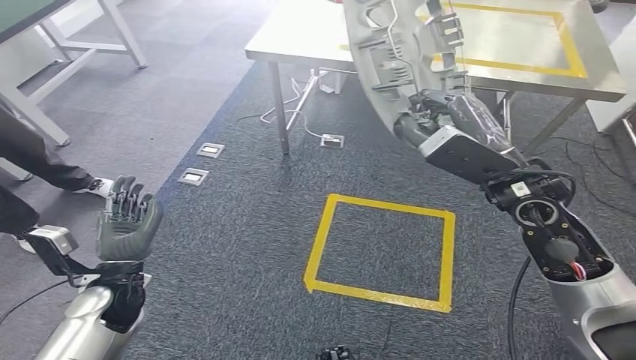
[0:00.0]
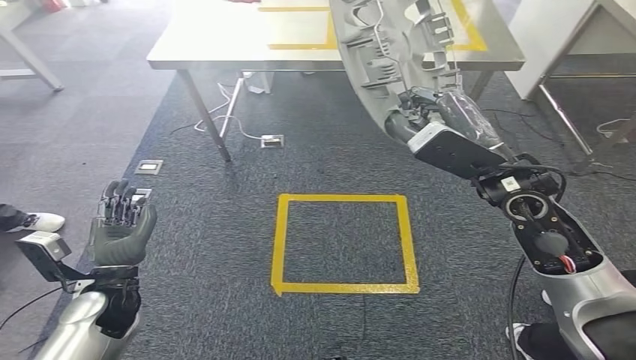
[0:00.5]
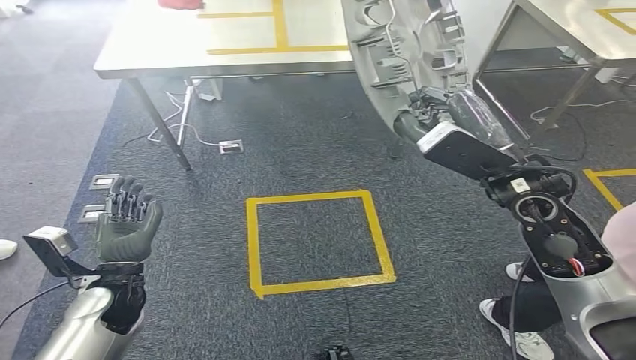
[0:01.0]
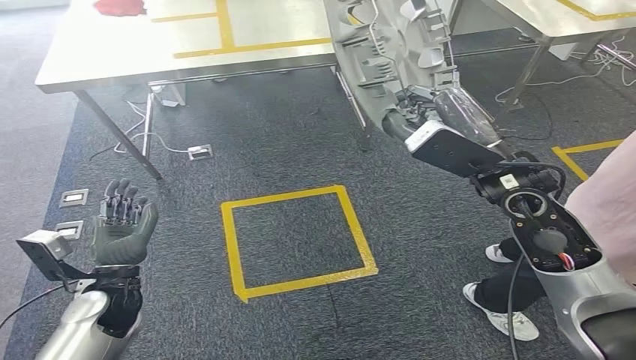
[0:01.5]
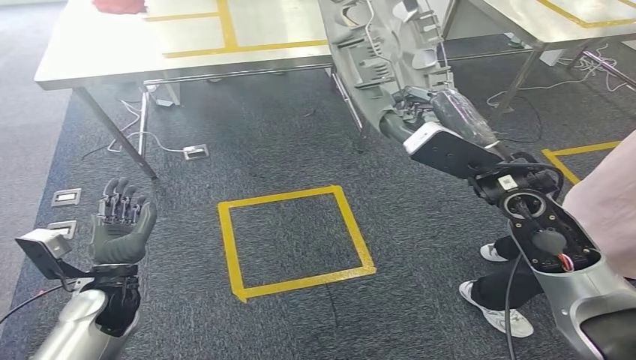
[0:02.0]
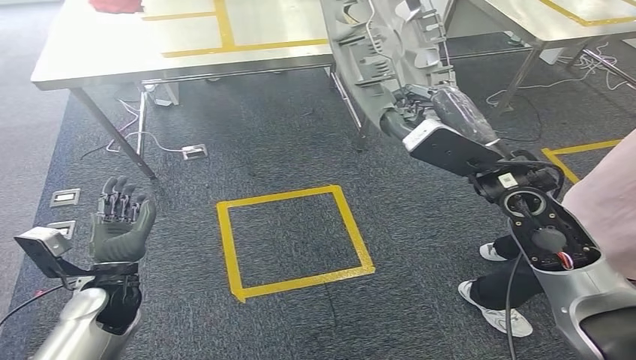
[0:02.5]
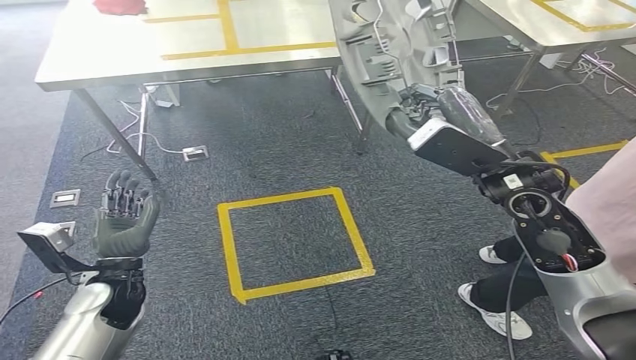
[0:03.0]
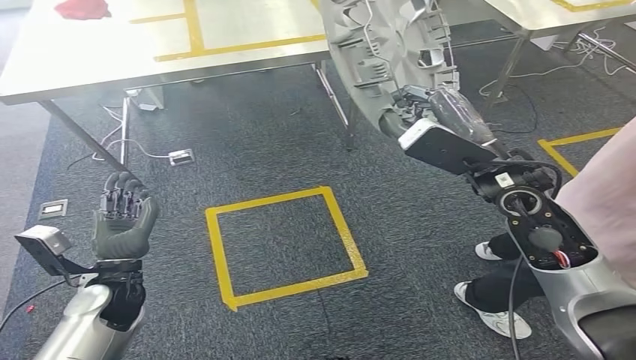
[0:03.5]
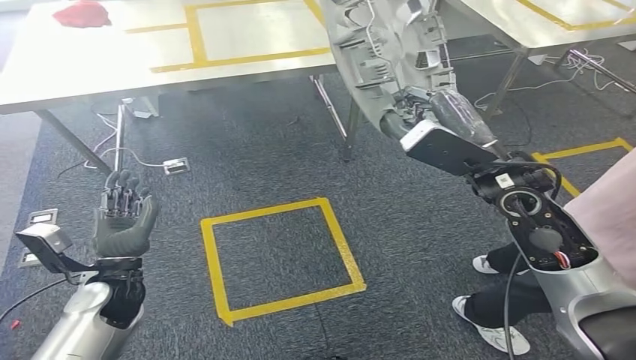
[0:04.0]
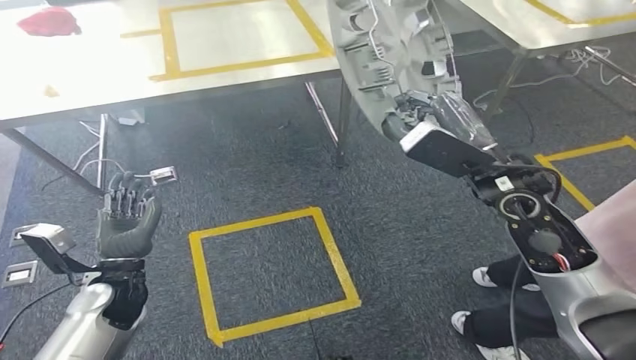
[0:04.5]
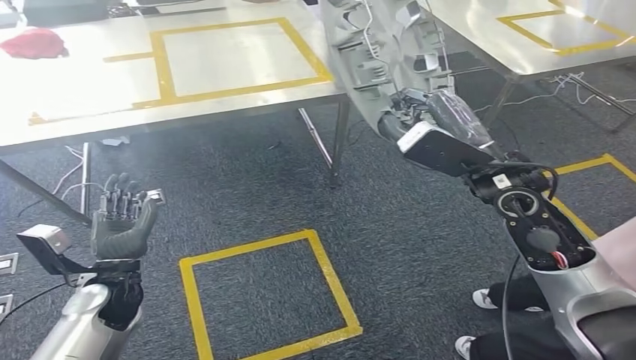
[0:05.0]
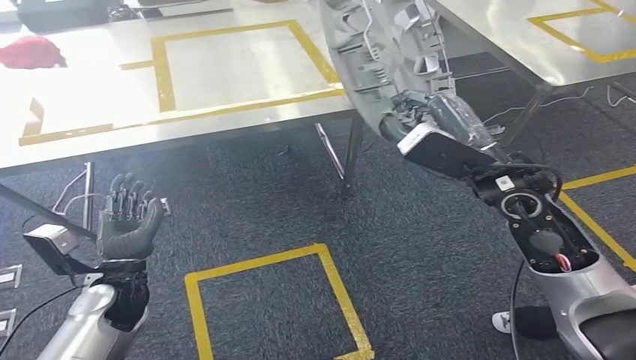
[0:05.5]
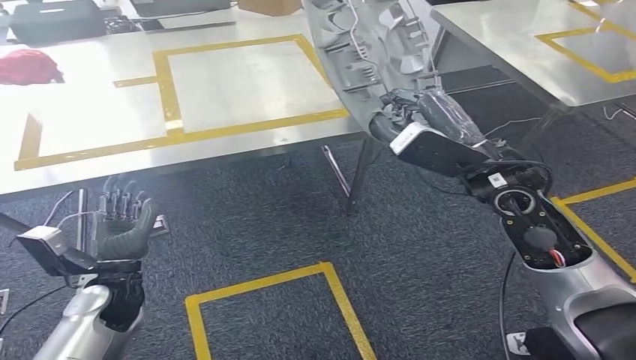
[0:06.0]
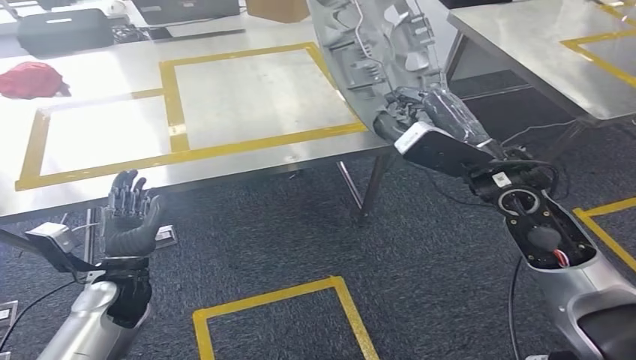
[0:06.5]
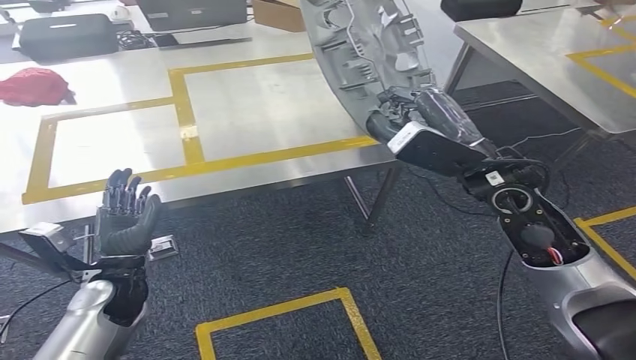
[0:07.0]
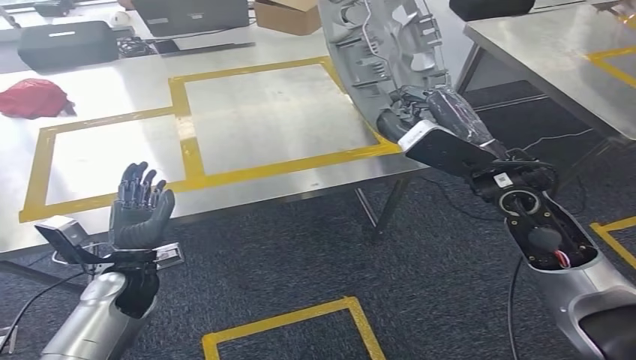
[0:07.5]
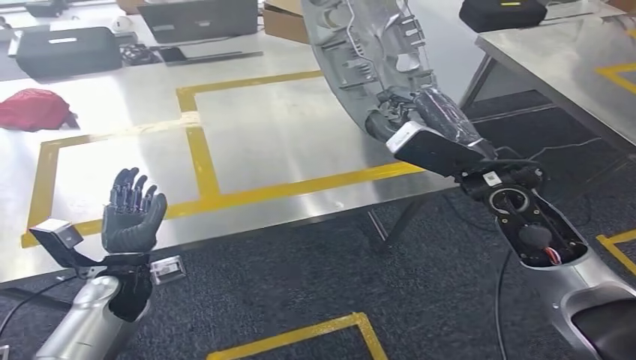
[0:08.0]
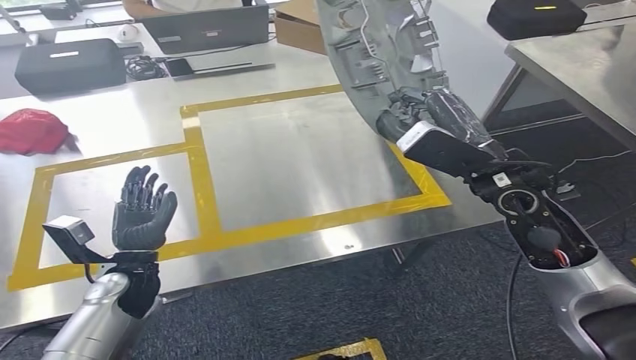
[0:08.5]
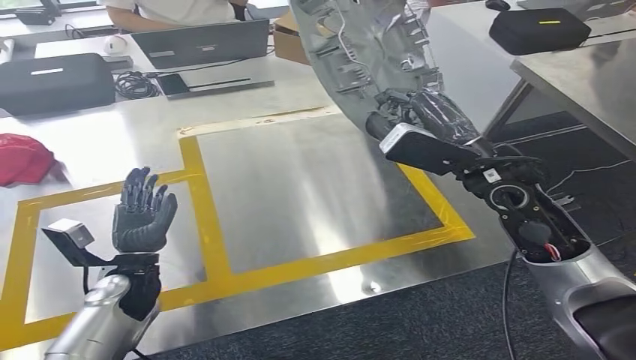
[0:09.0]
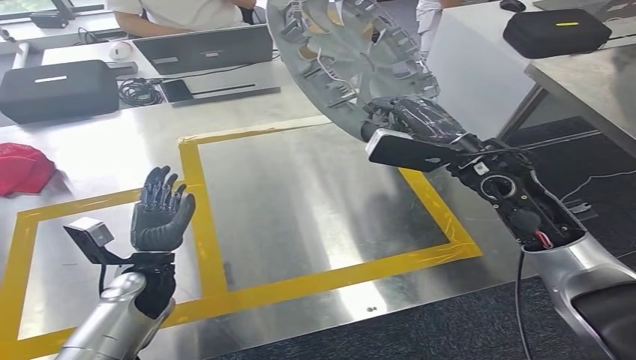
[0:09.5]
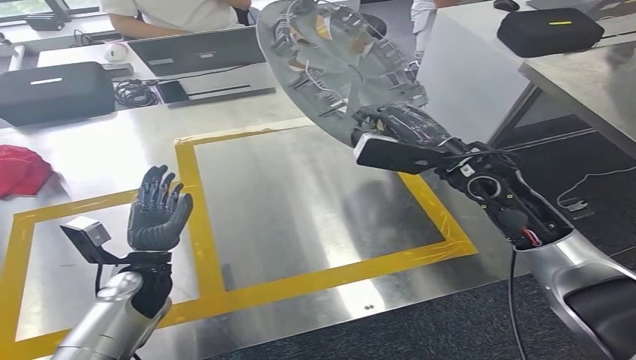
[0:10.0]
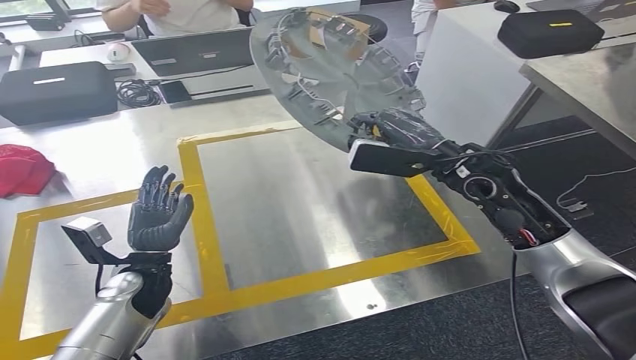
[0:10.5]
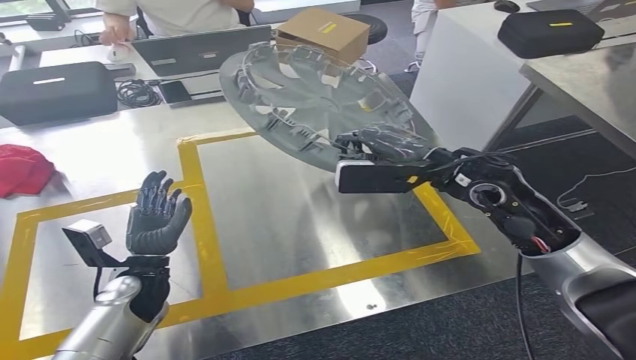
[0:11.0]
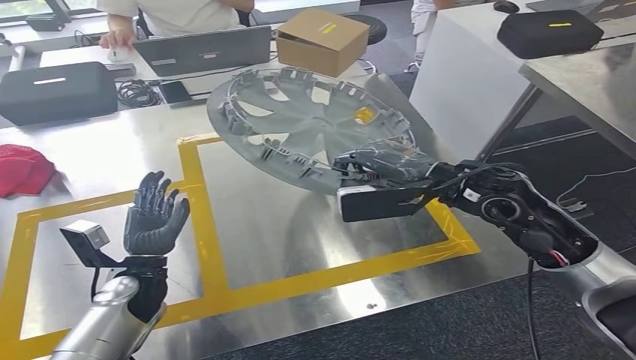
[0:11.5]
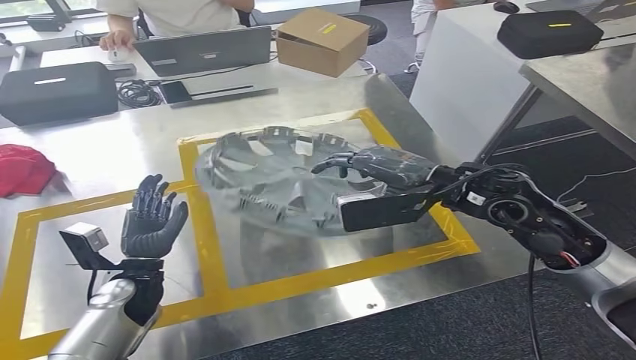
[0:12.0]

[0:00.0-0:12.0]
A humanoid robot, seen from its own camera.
Step, 0:00.0 to 0:08.5: Move the small parts to the workbench.

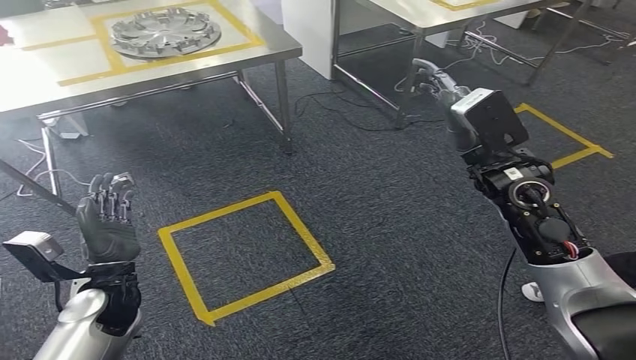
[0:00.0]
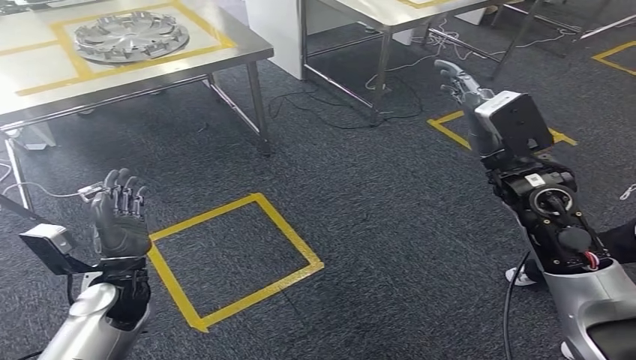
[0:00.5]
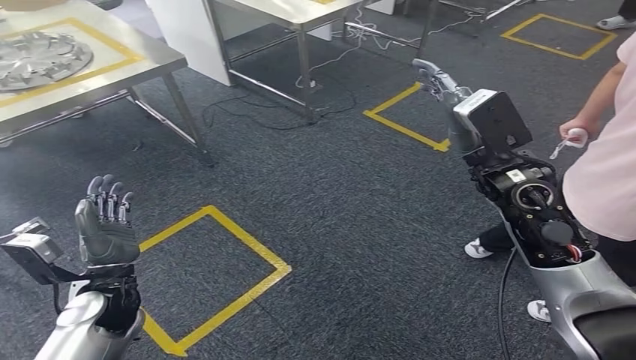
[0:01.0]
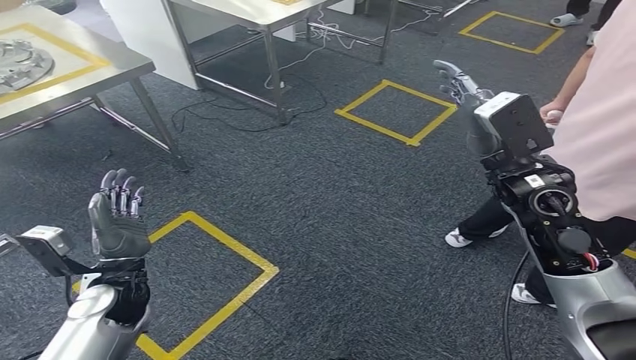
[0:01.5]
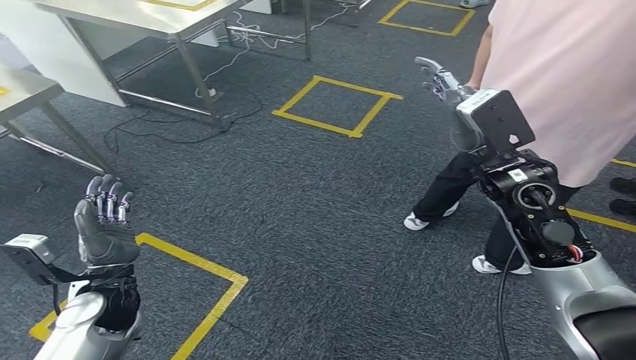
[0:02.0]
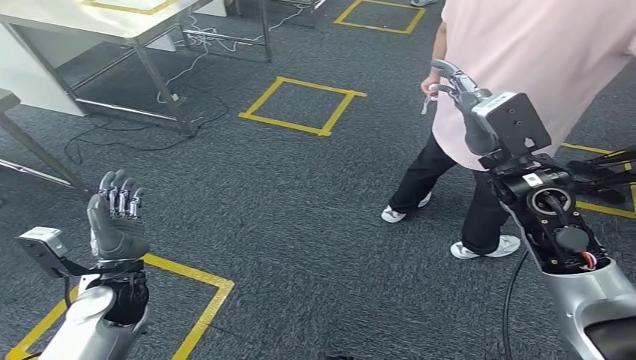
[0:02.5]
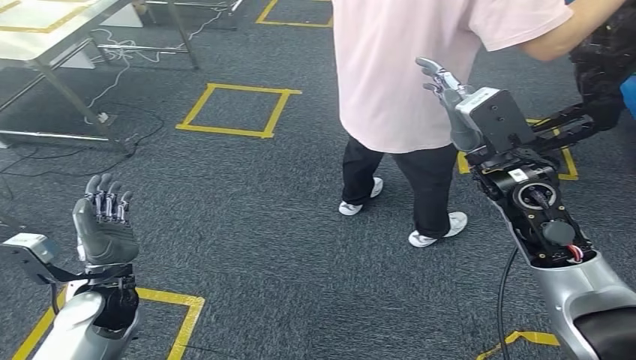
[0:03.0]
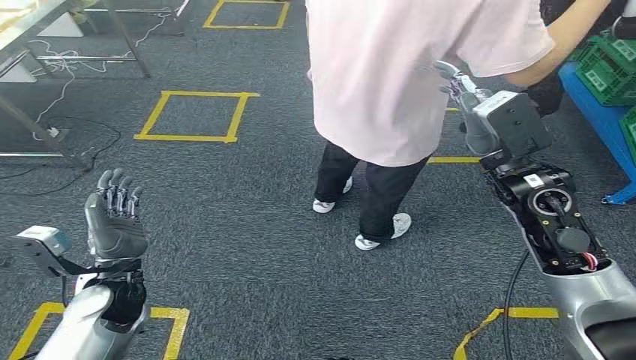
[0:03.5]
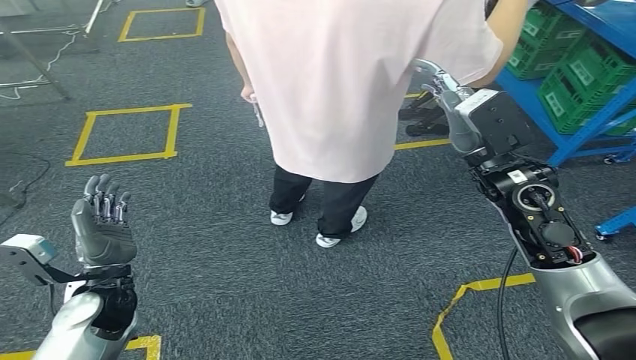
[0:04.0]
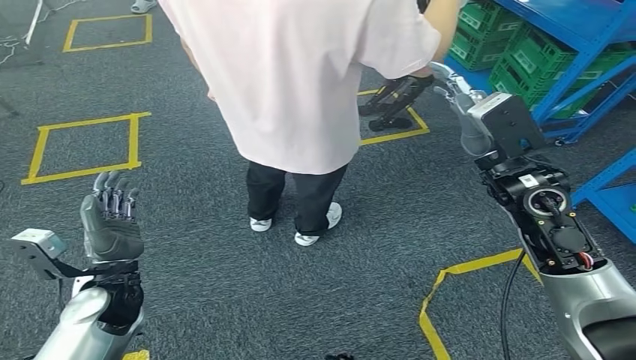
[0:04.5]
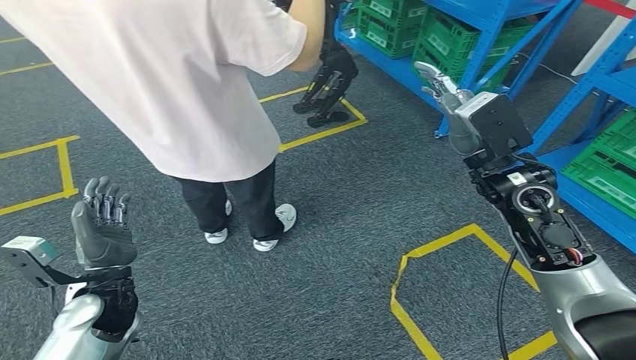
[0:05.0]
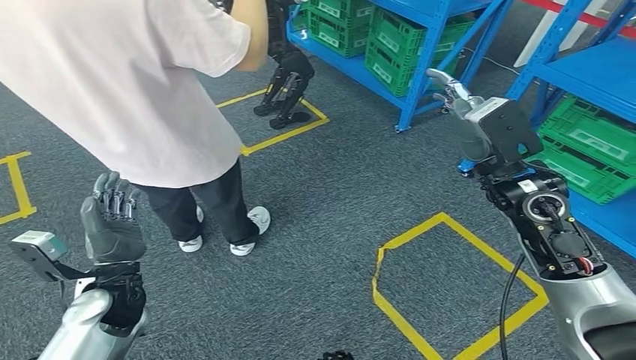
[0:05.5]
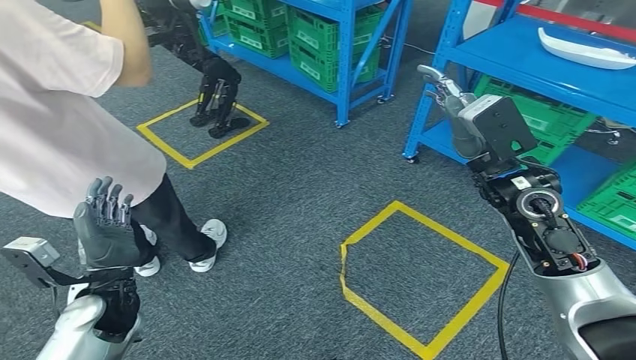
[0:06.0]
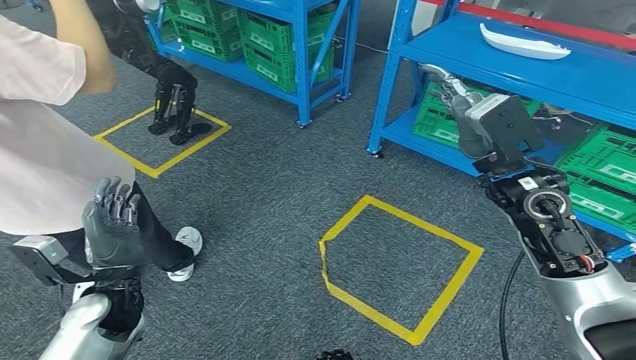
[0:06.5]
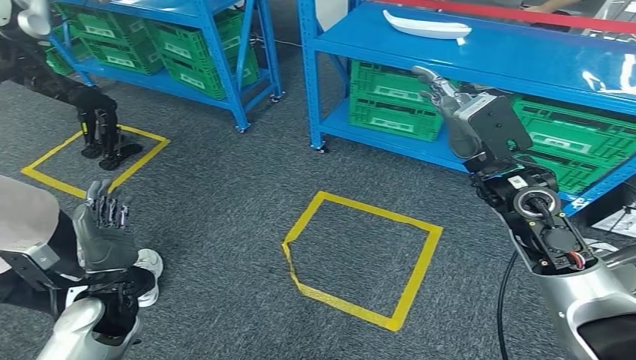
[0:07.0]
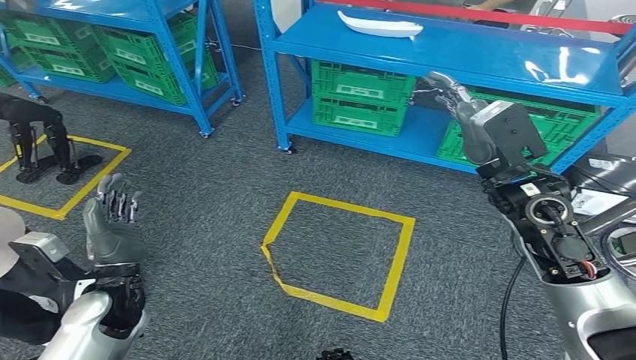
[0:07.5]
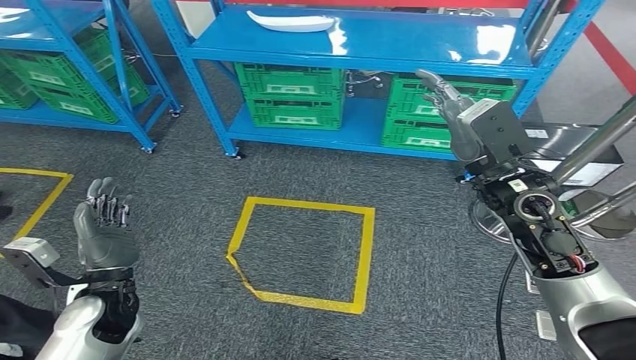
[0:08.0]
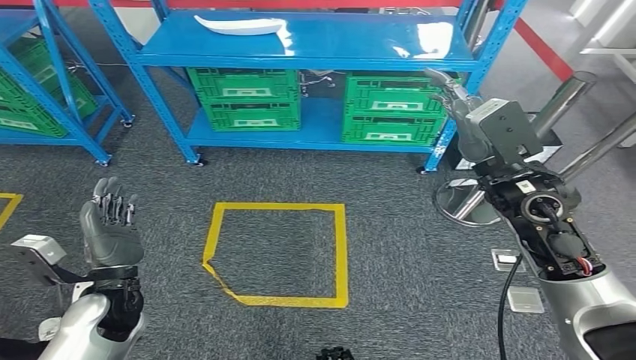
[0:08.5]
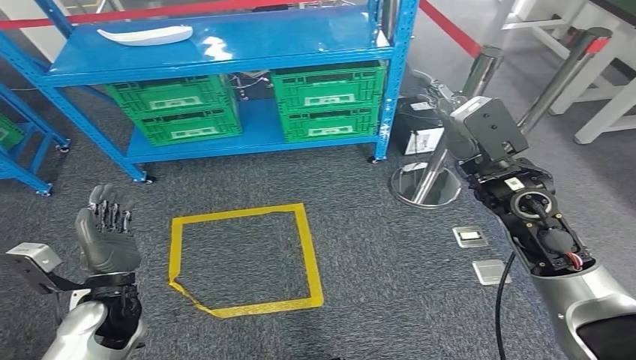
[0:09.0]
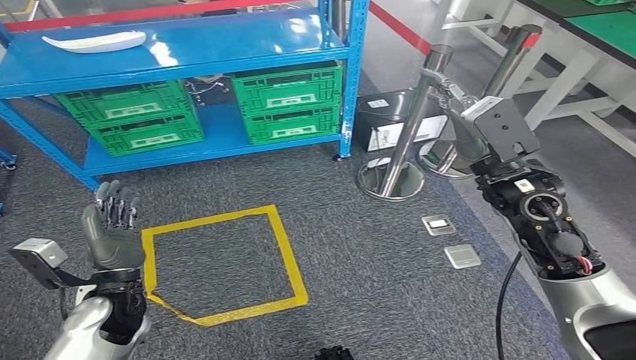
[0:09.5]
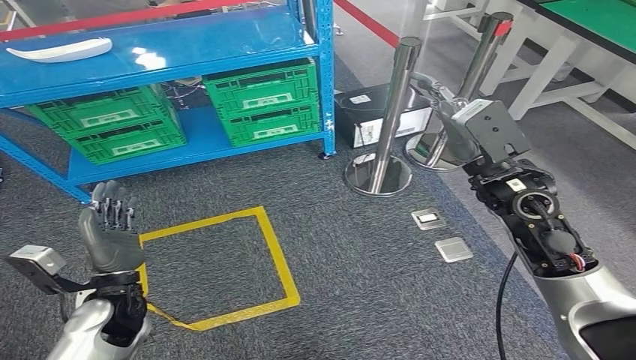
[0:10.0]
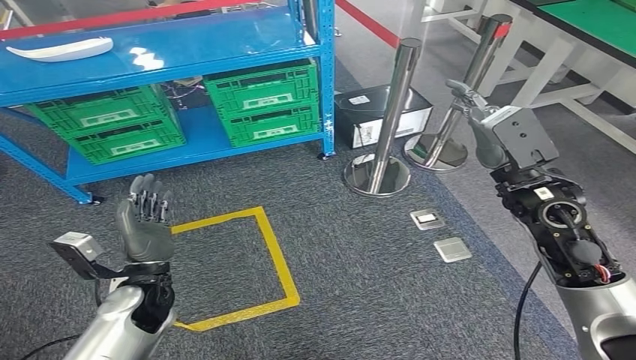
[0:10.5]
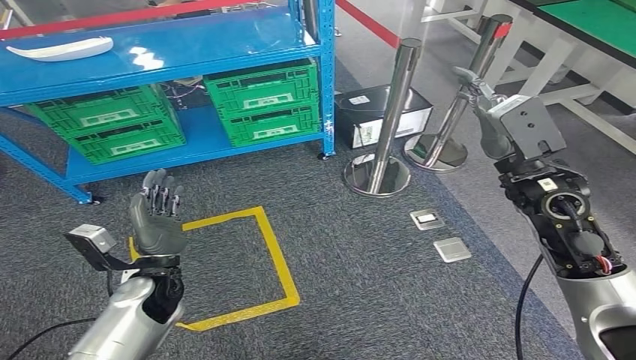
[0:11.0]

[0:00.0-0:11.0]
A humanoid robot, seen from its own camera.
Step, 0:00.0 to 0:11.0: Move to the initial position of the workbench.
